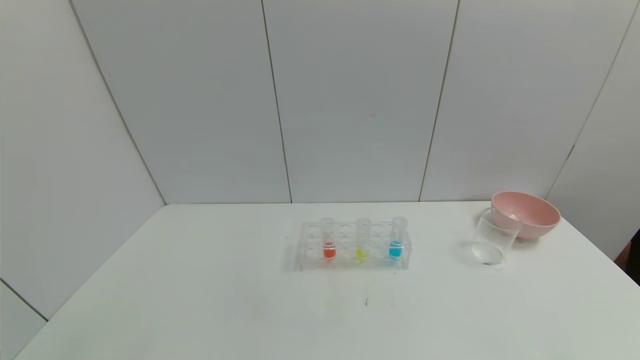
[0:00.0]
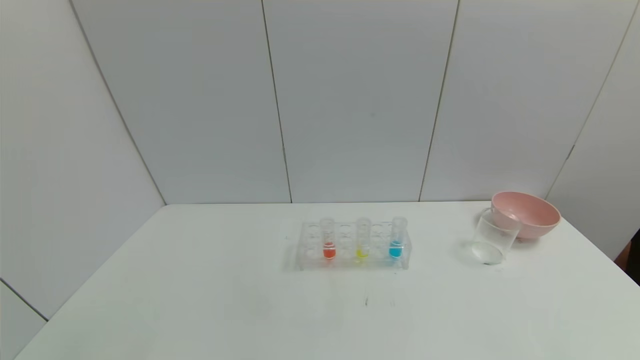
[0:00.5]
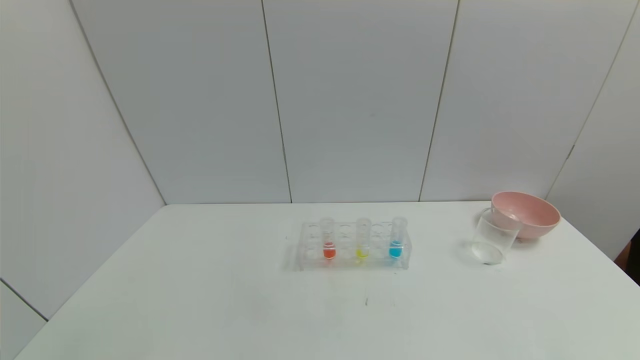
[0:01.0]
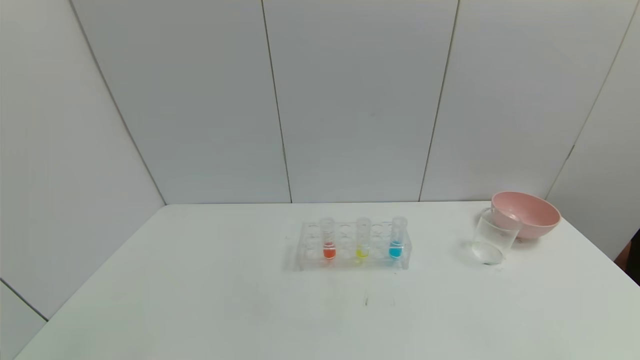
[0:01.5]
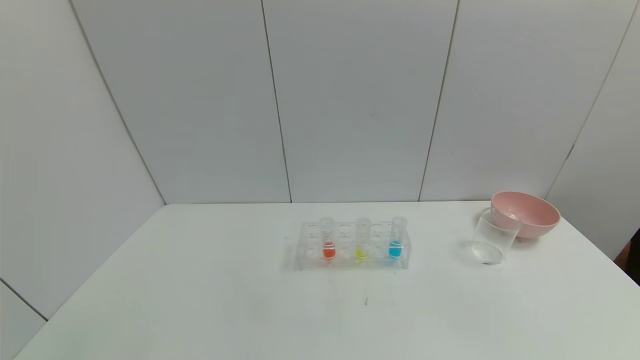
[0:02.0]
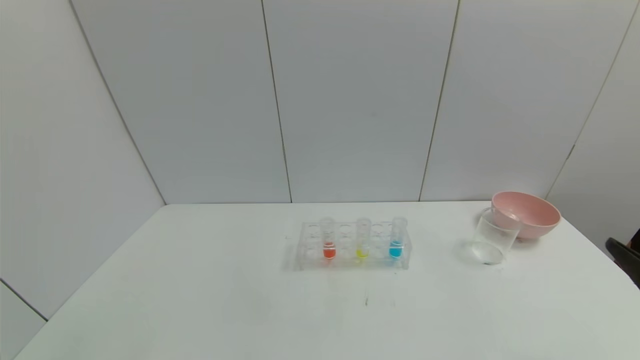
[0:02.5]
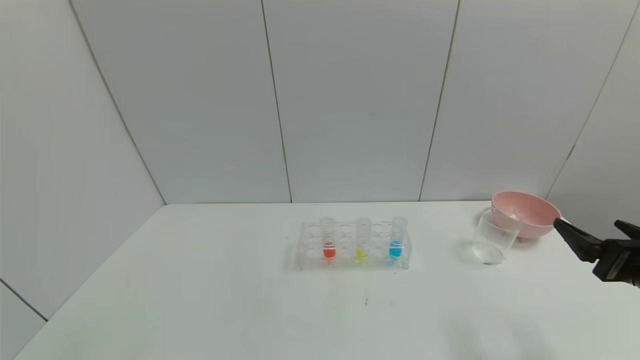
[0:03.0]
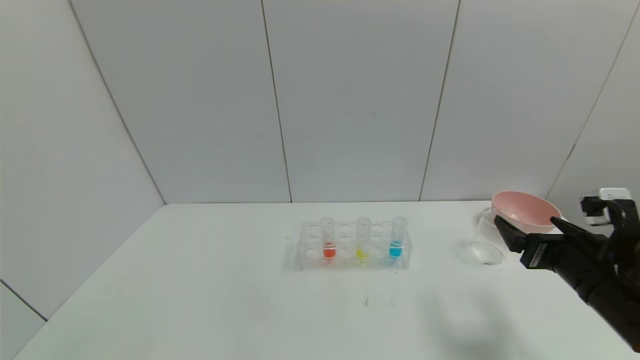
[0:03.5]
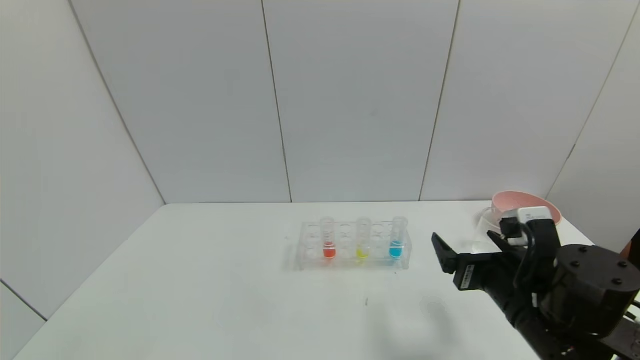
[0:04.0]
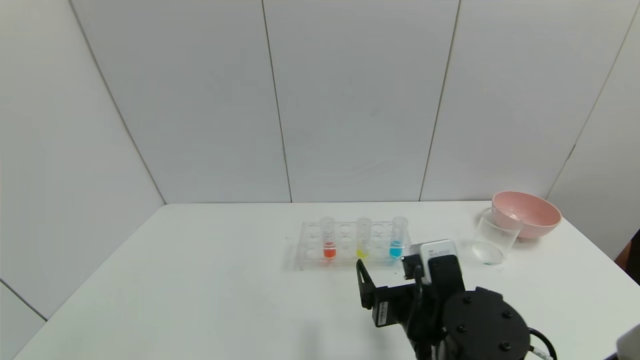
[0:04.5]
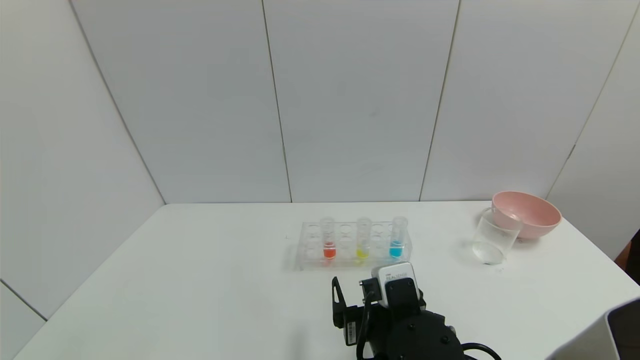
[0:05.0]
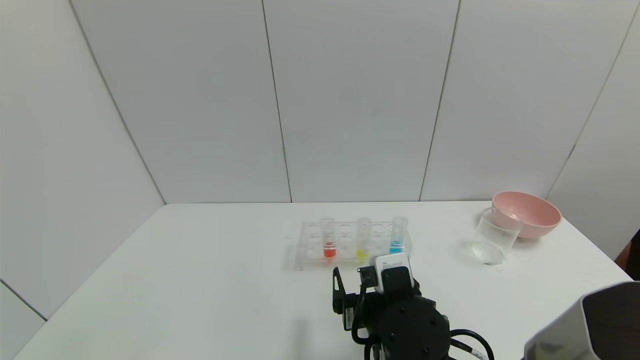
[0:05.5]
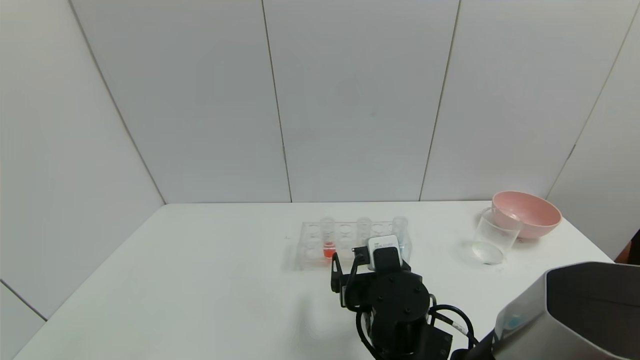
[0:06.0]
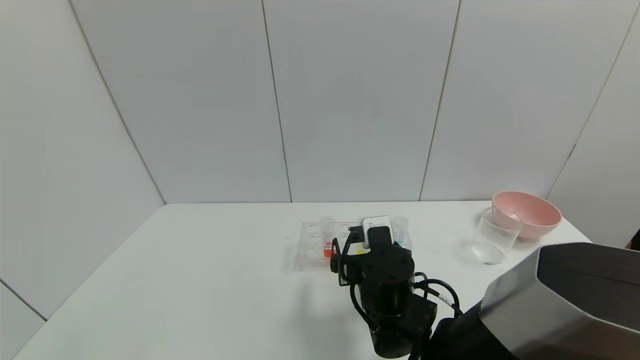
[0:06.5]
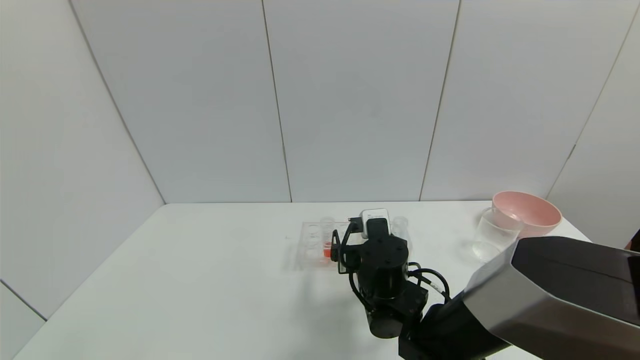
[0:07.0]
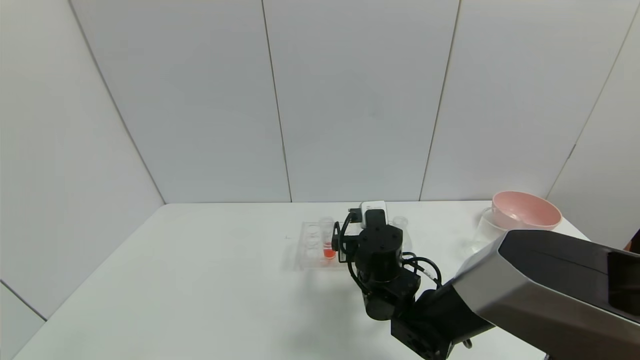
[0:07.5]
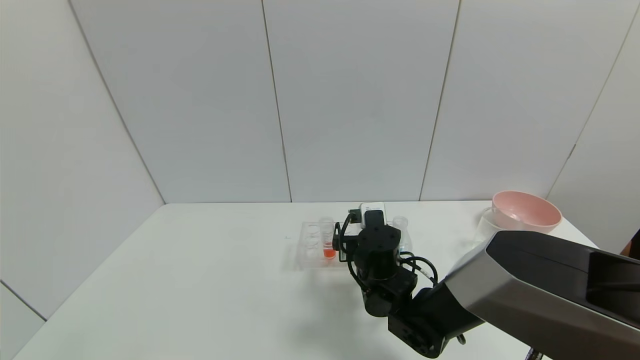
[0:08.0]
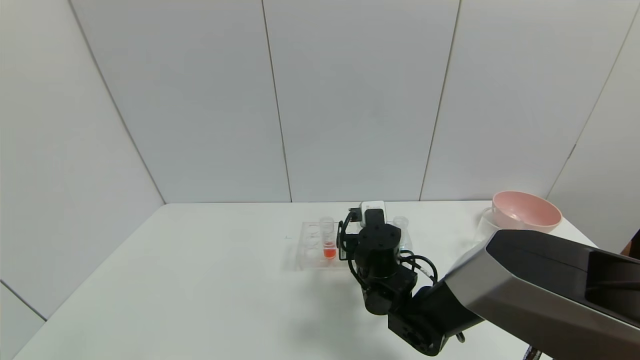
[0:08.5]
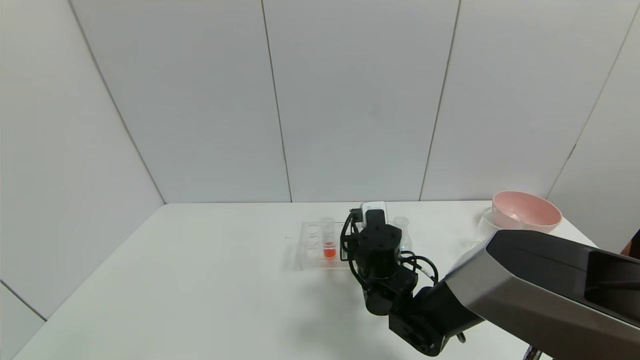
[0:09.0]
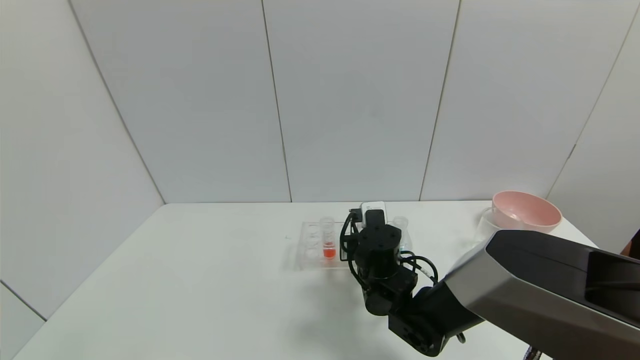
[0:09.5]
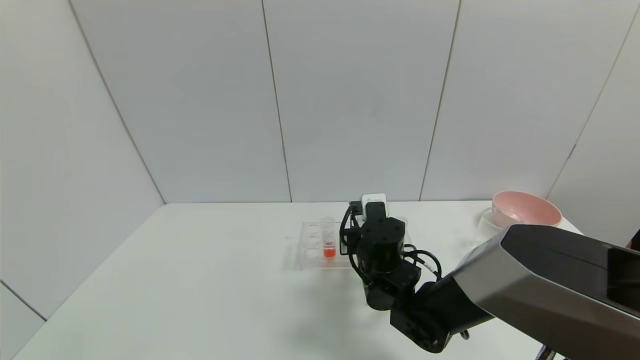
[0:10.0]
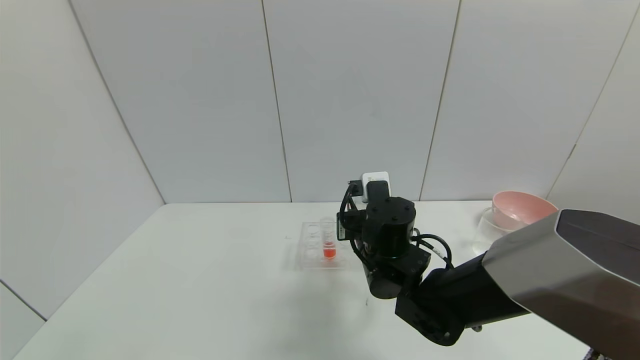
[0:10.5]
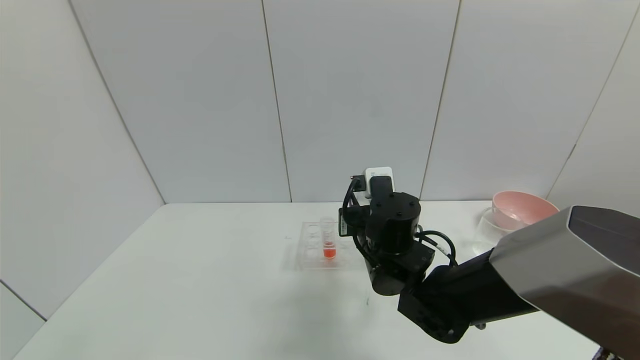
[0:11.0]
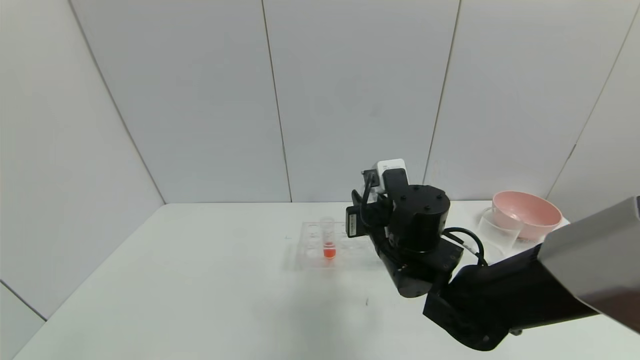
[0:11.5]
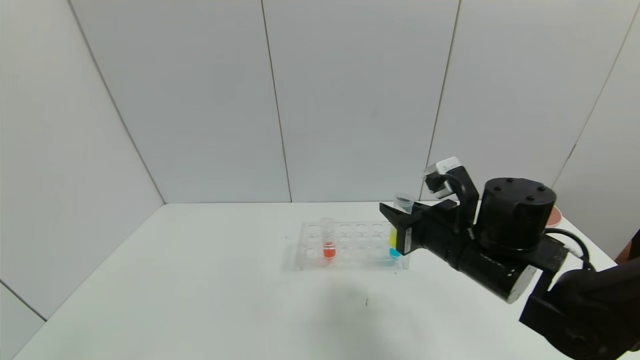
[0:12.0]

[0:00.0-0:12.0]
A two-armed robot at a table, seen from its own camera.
Task of the whole recording: pick up the test tube with yellow pigment and the test tube with blue pigment by grippers and pour them into the beaker.
0:02.0 to 0:04.0: The right gripper heads forward and to the left, covering some 25 cm.
0:04.0 to 0:06.0: The right gripper travels to the left by some 15 cm.
0:06.0 to 0:08.0: The right gripper goes roughly 10 cm forward.
0:08.0 to 0:10.0: The right gripper closes its fingers.
0:10.0 to 0:12.0: The right gripper heads to the right, upward and backward, covering some 15 cm.

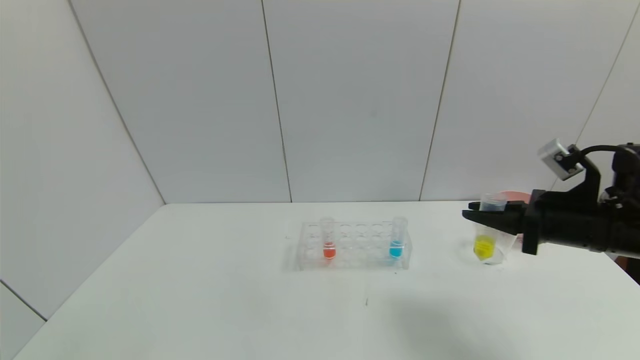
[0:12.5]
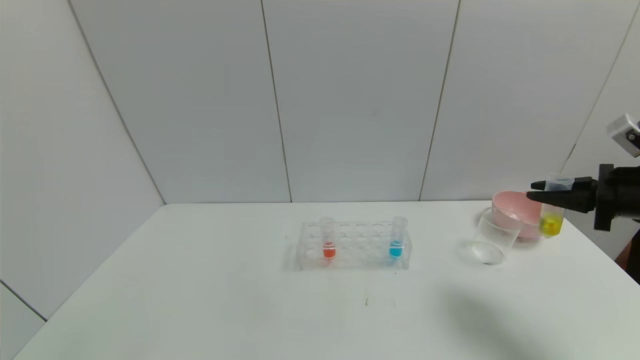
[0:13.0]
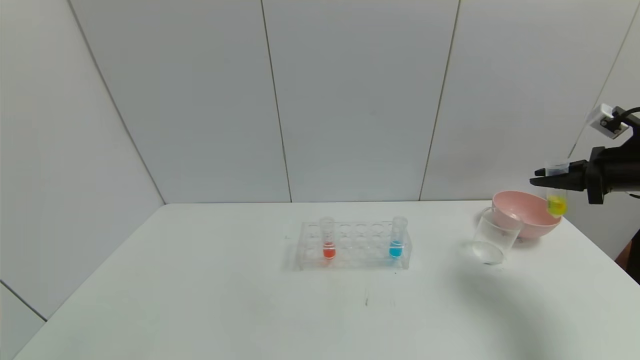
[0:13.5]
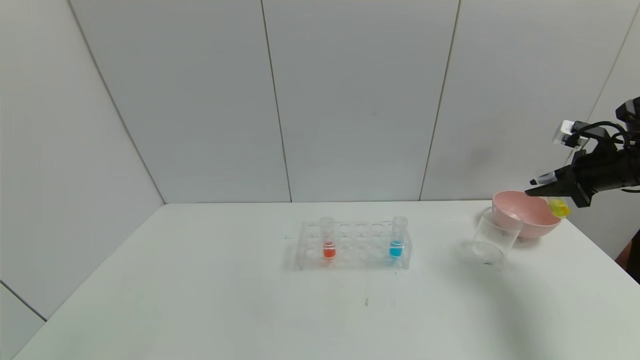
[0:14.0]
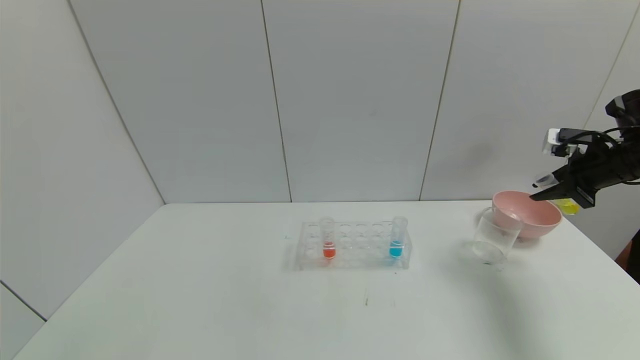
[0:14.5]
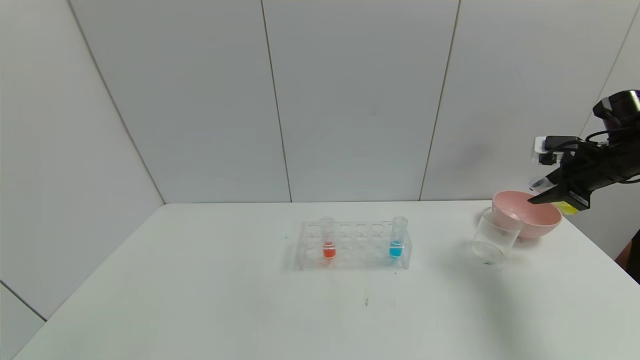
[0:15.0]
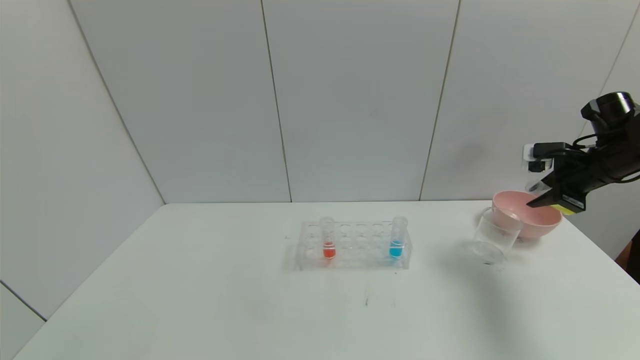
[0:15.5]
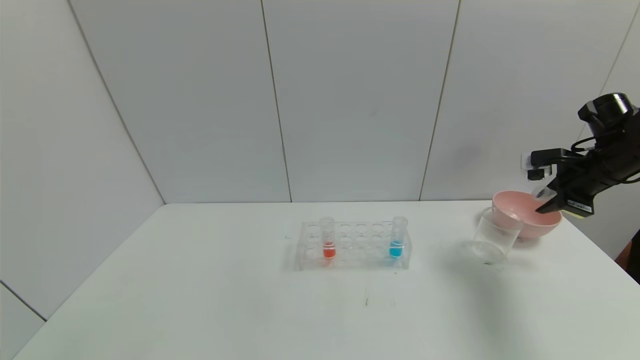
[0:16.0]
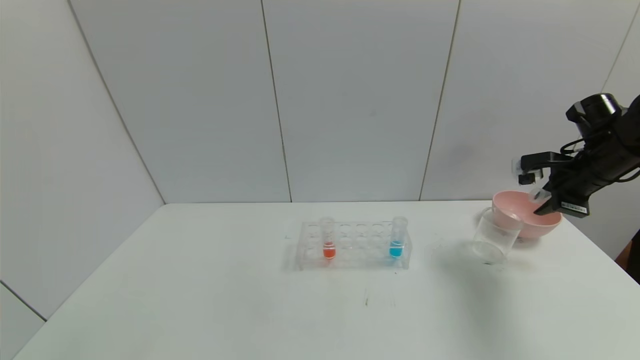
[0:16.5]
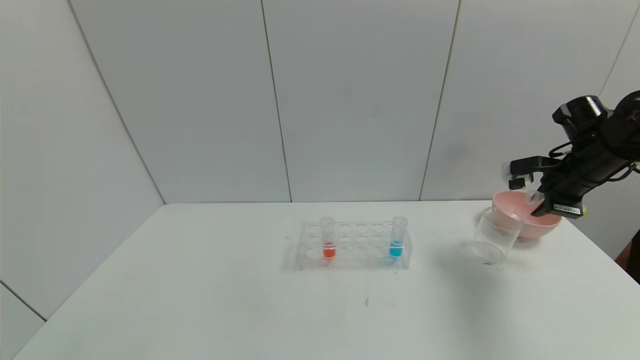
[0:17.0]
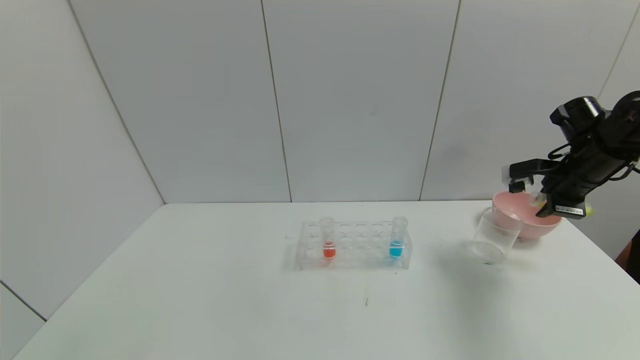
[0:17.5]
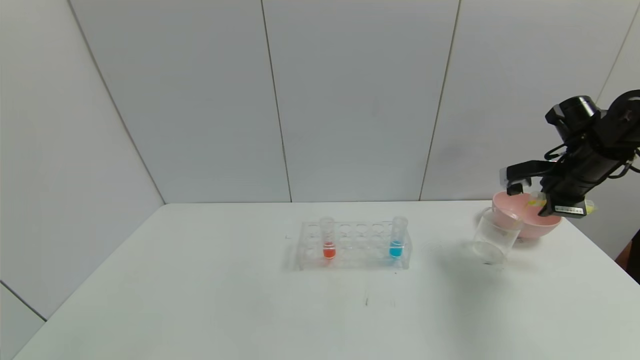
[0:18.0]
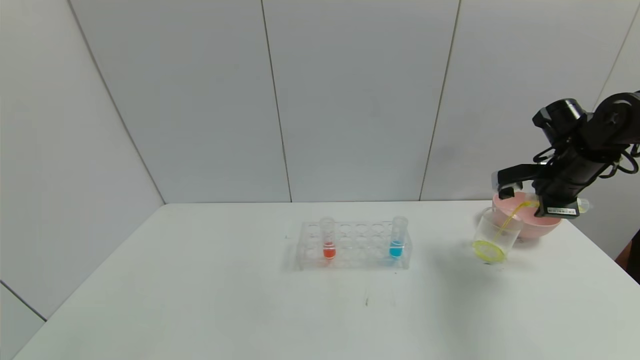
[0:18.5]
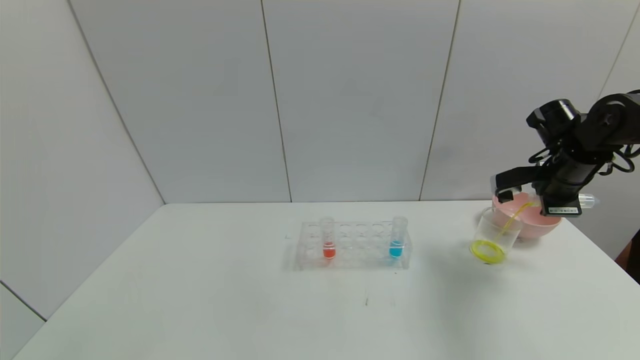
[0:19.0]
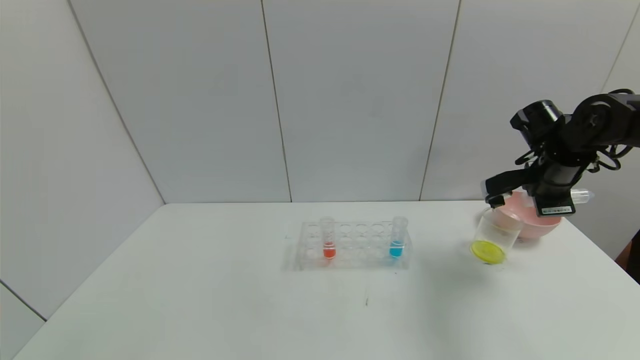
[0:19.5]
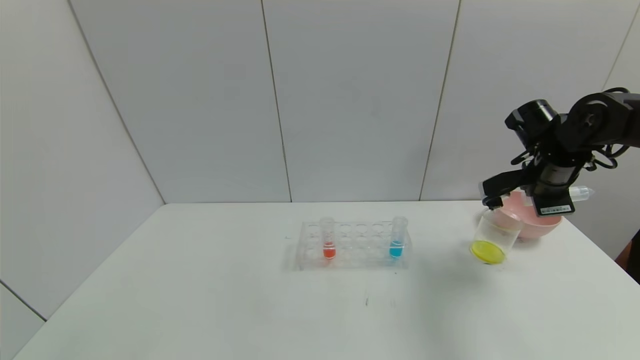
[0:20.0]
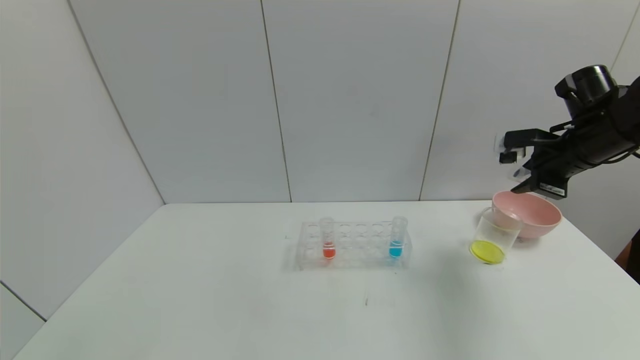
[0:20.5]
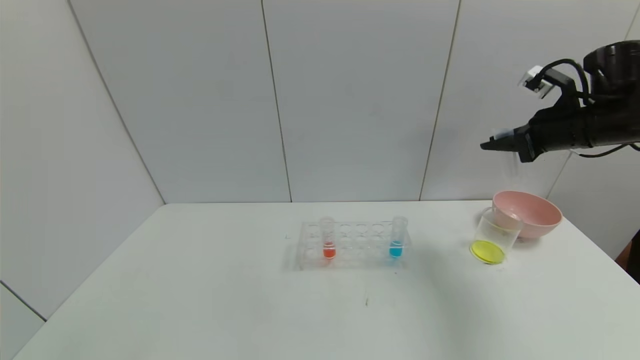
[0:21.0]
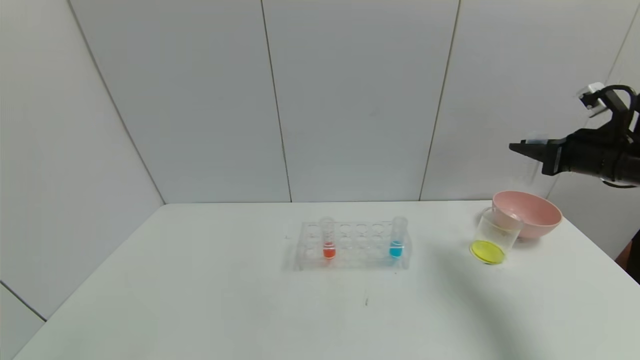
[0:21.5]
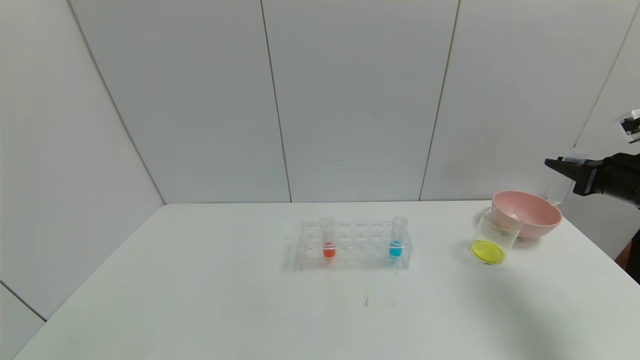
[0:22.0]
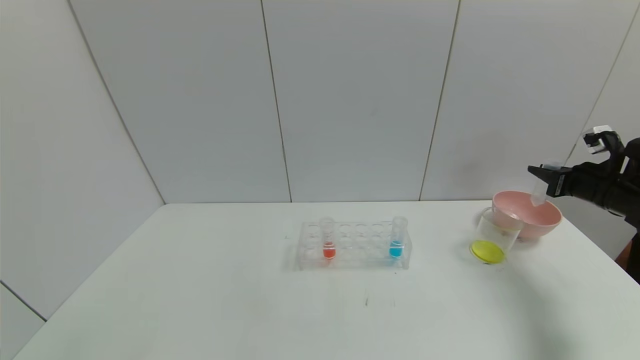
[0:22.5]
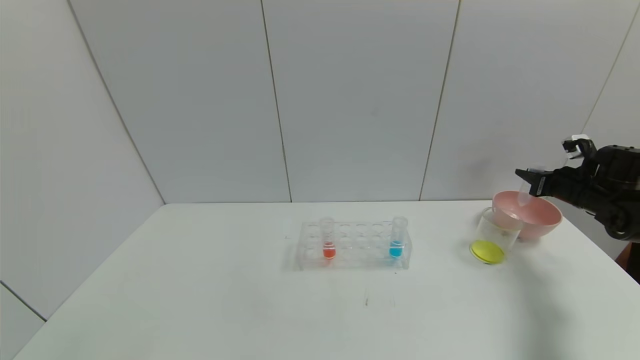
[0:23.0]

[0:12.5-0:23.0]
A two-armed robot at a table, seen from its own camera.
Task of the whole recording: pick up the test tube with yellow pigment and the test tube with blue pigment by grippers and pour them into the beaker.
Step, 0:12.5 to 0:21.5: Pour the yellow reagent into the graduated cylinder with right gripper.
0:12.5 to 0:14.5: The right gripper moves to the right and forward, approximately 15 cm.
0:19.0 to 0:21.0: The right gripper shifts some 5 cm upward.
0:21.0 to 0:23.0: The right gripper heads downward and to the right, covering some 20 cm.
